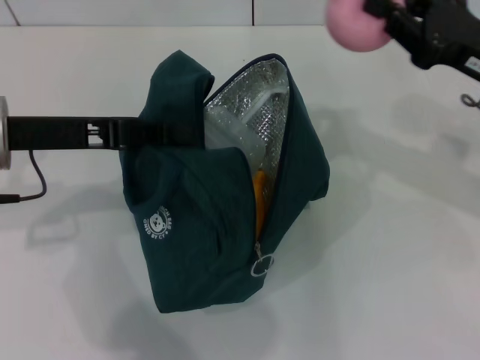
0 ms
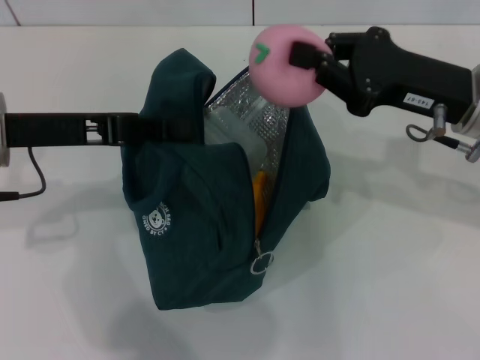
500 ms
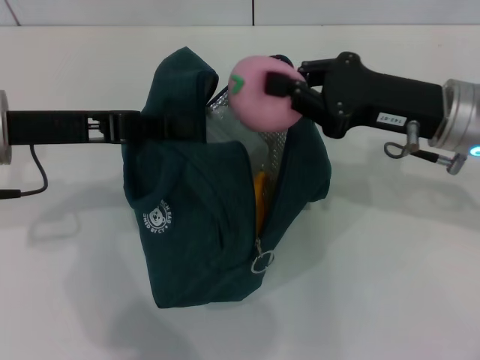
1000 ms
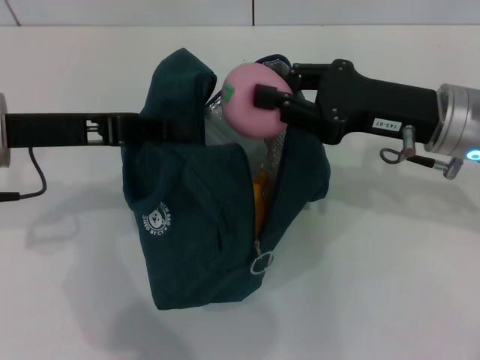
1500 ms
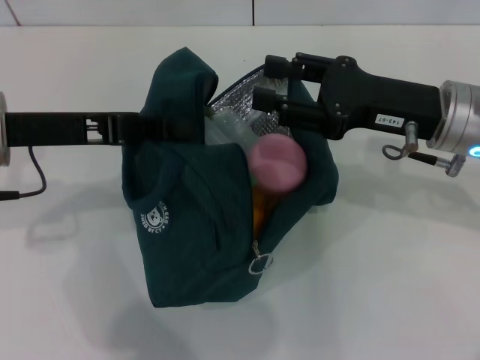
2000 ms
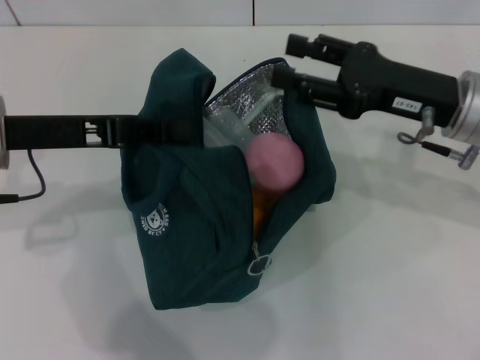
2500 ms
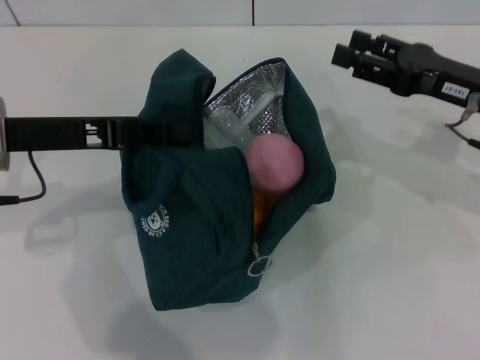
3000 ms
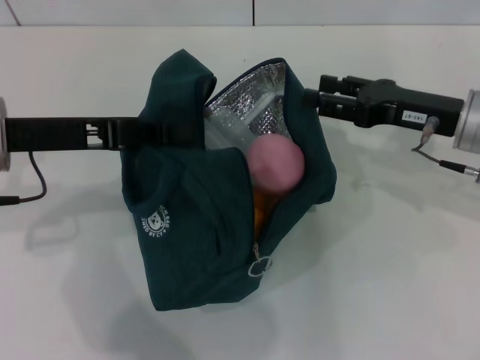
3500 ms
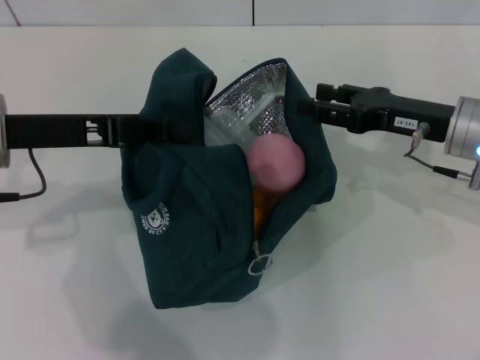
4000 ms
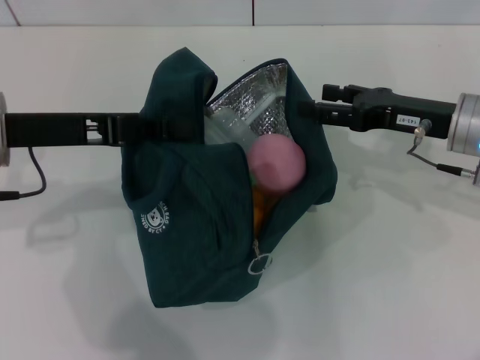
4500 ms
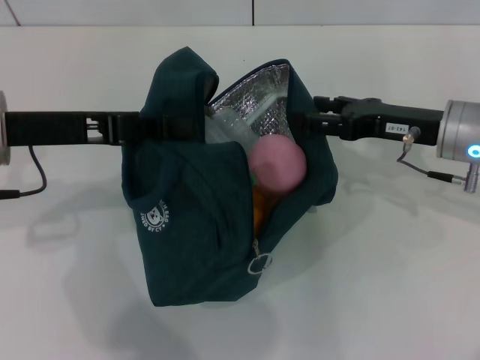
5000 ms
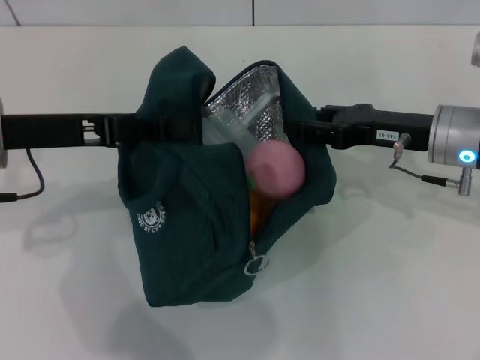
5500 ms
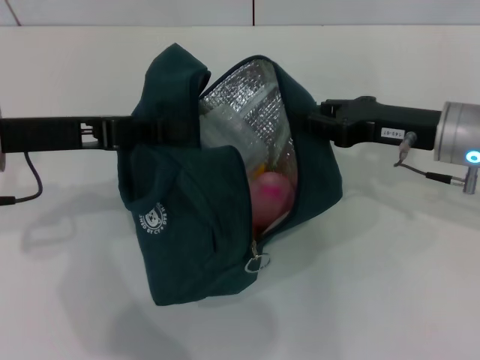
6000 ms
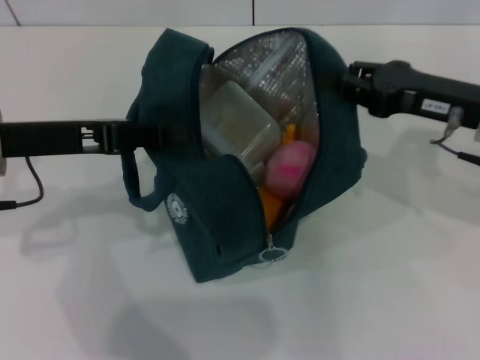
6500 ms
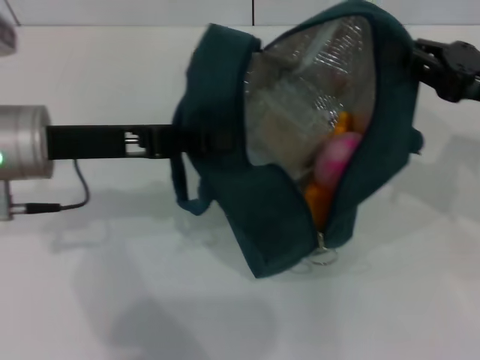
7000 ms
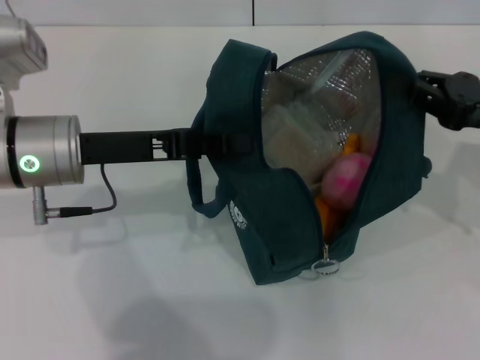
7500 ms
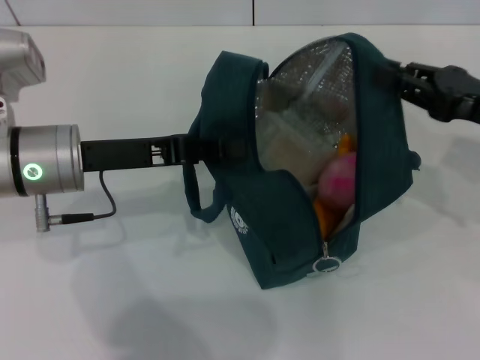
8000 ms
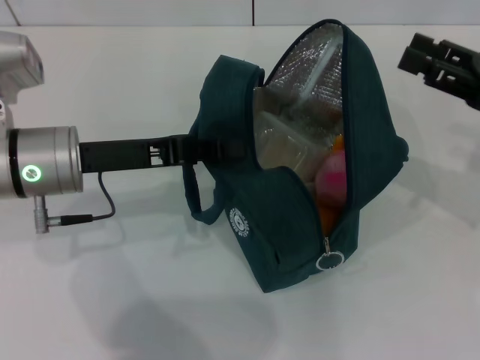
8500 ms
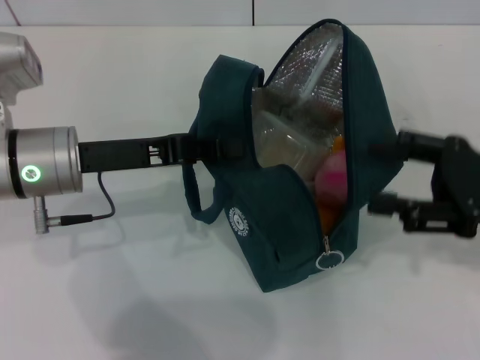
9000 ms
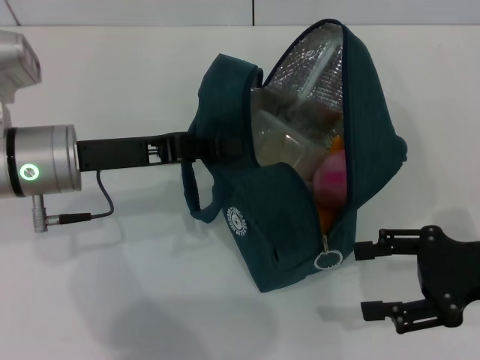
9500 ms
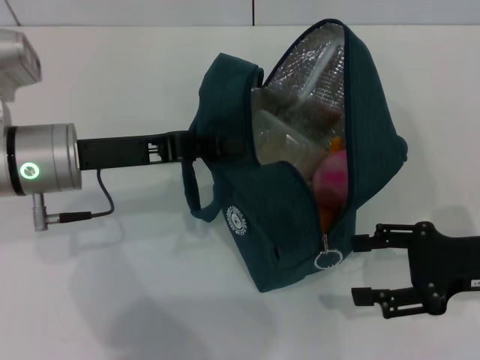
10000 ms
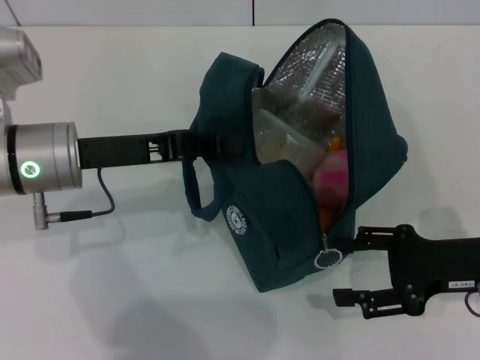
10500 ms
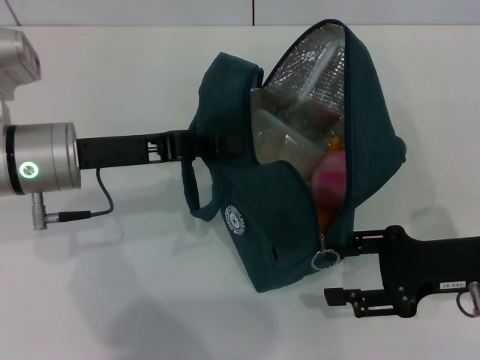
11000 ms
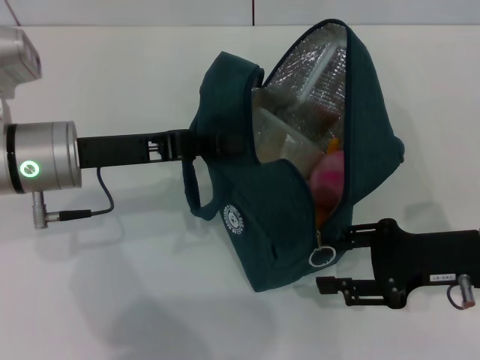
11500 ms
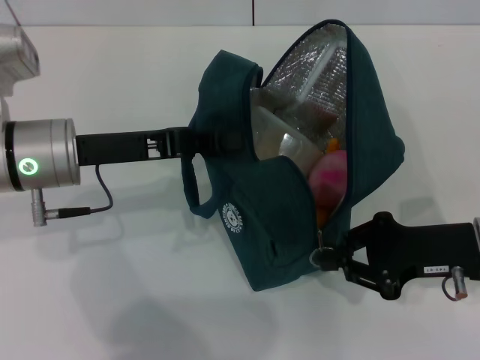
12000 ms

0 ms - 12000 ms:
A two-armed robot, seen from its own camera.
Step, 2500 ms - 8000 ms: Hold the lunch bag with your right hand.
0 ms - 2000 ms: The right gripper goes some 5 cm to the left, and opens up.
2000 ms - 4000 ms: The right gripper shifts by some 5 cm.
4000 ms - 6000 ms: The right gripper closes its fingers.
6000 ms - 8000 ms: The left gripper shifts by some 5 cm; the right gripper goes about 5 cm to the right.
8000 ms - 10000 ms: The right gripper moves backward and downward, about 10 cm, and opens its fingers.
10000 ms - 12000 ms: The right gripper closes.

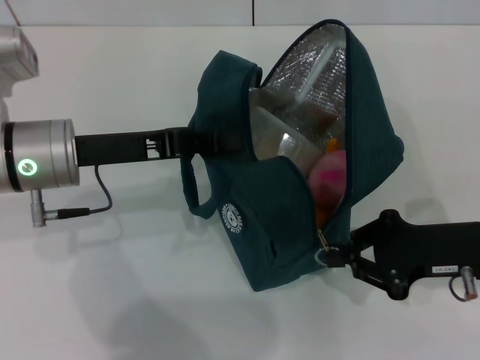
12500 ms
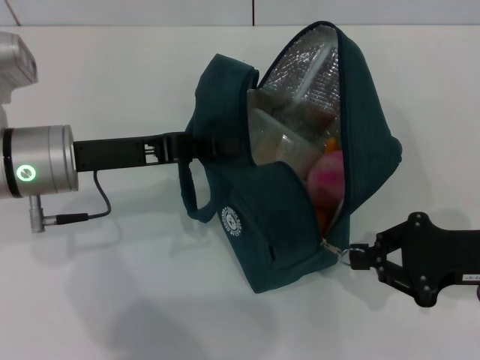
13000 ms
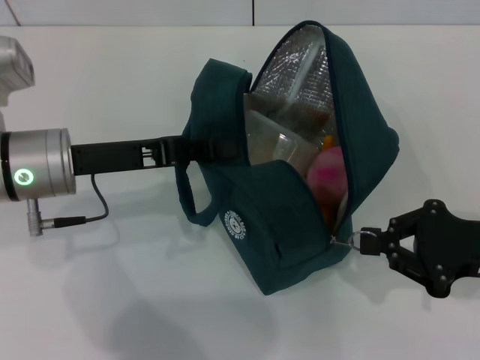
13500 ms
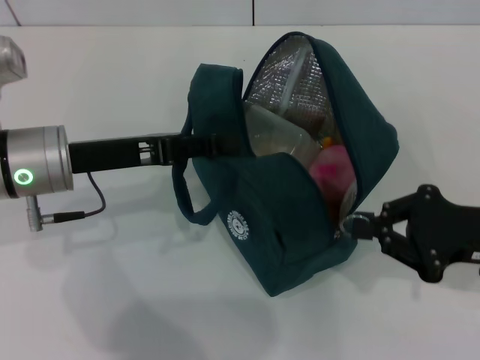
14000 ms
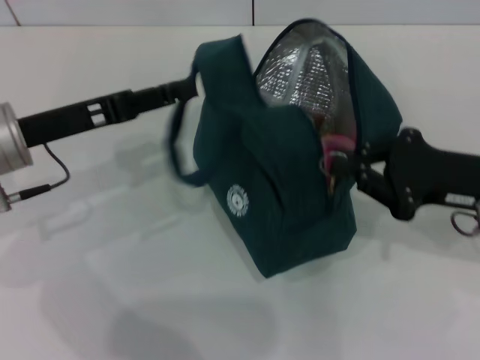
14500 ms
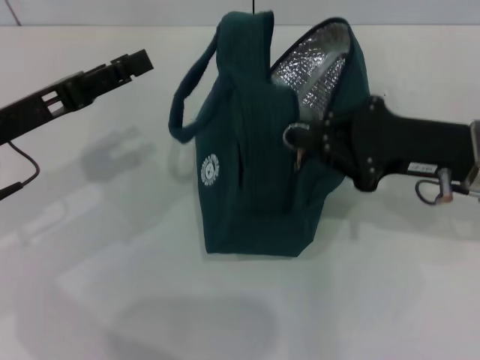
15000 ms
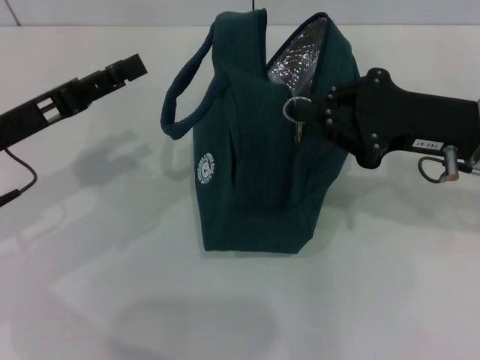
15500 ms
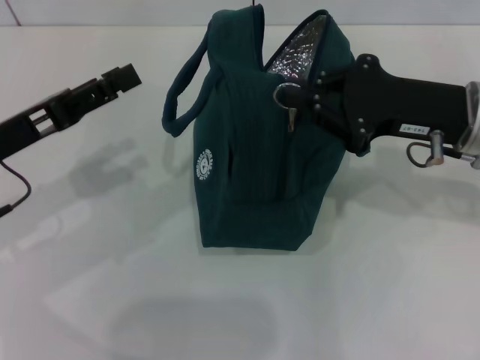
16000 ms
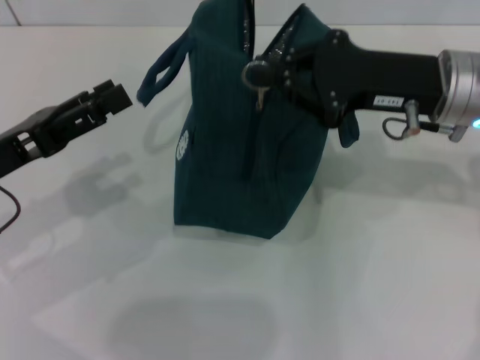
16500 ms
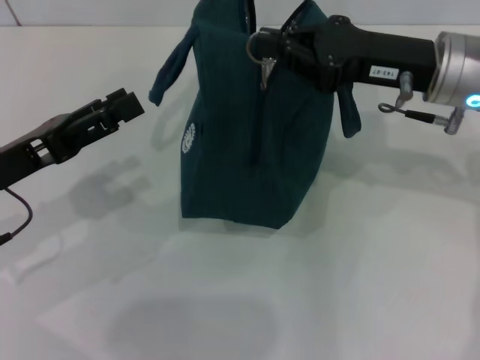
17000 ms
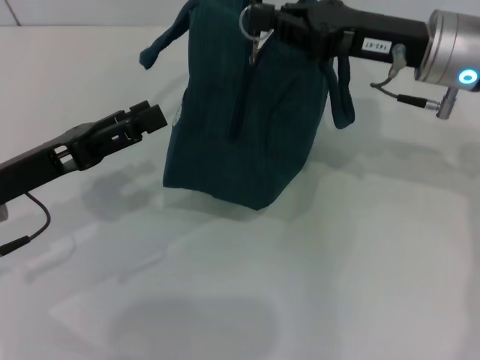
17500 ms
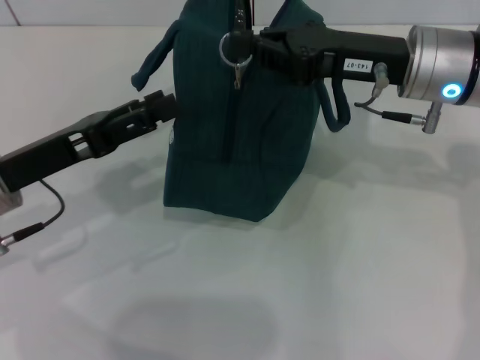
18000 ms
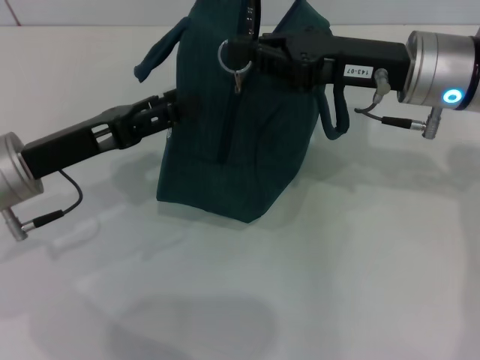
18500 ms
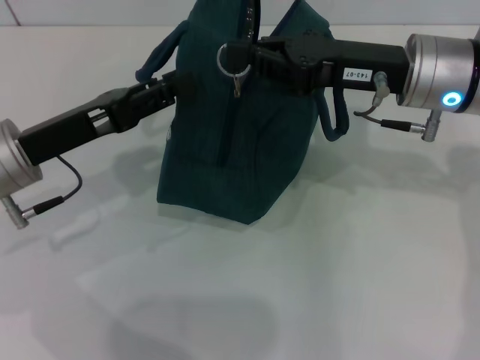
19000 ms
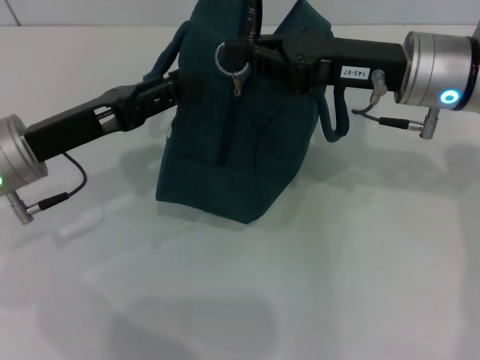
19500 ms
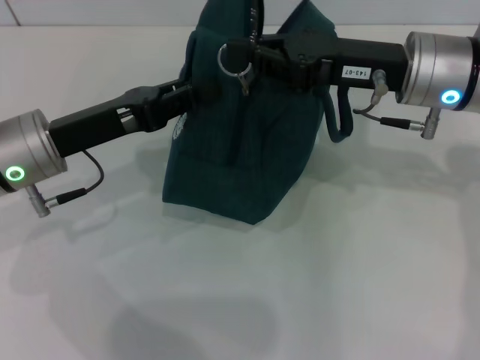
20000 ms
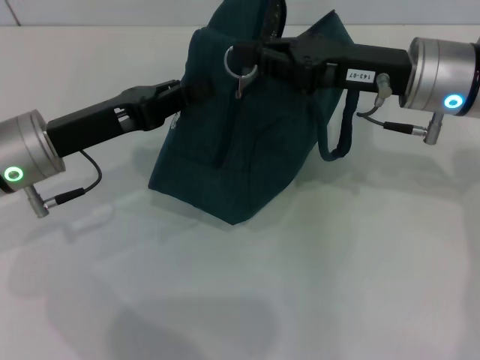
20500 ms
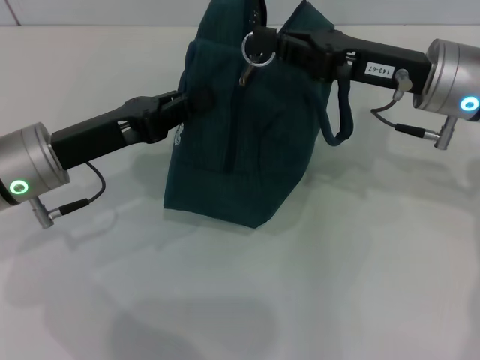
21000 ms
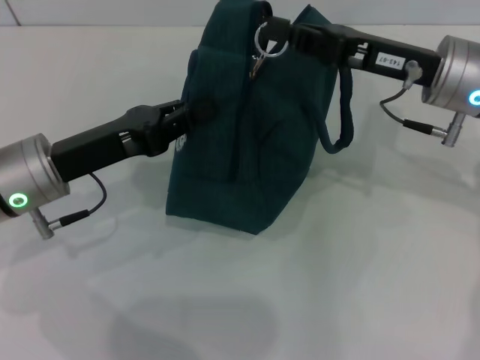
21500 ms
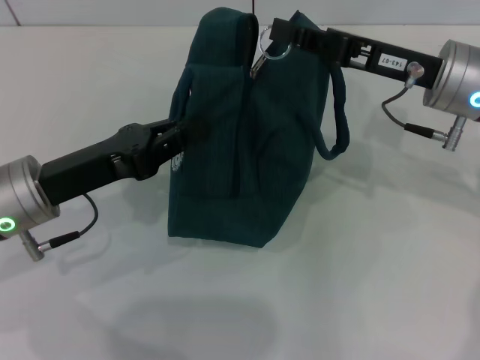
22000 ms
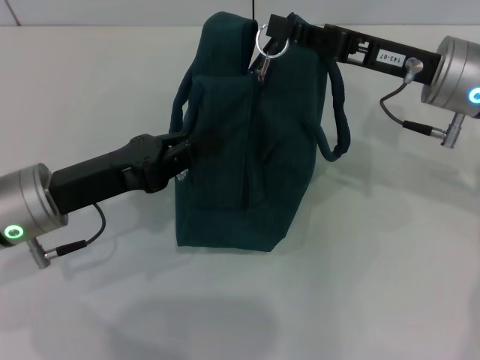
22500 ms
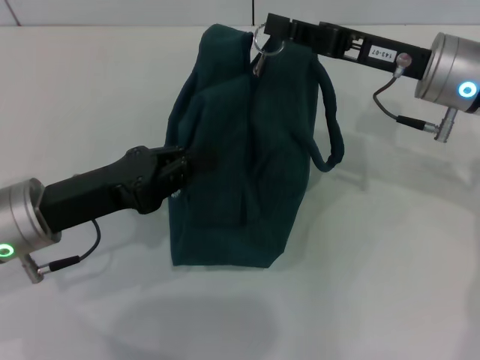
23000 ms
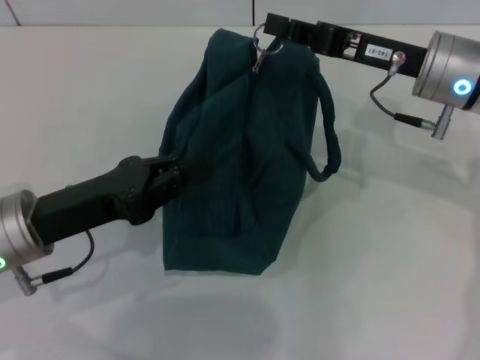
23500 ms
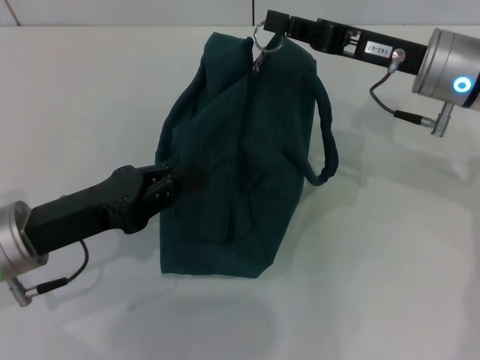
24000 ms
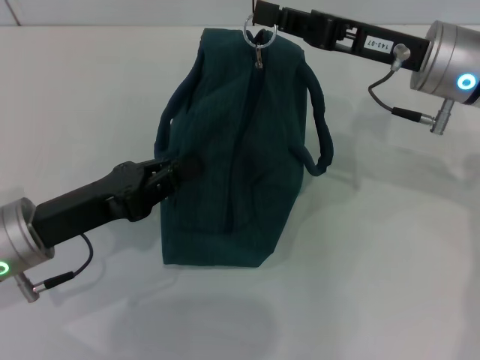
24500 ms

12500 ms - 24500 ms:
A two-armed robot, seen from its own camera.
12500 ms - 14500 ms: The left gripper opens.
14500 ms - 16500 ms: The right gripper goes about 10 cm to the left, upward and forward, while the left gripper moves backward, some 5 cm.
16500 ms - 18500 ms: The left gripper changes place by approximately 5 cm.
18500 ms - 20500 ms: The left gripper closes.

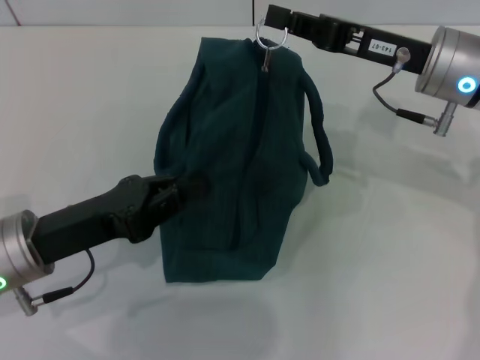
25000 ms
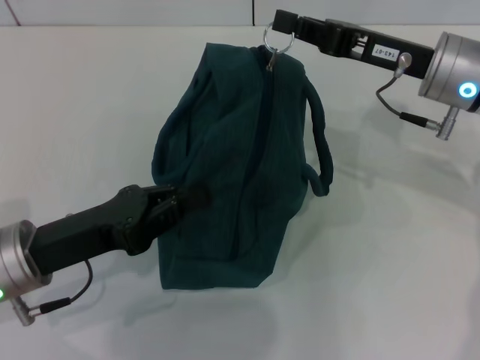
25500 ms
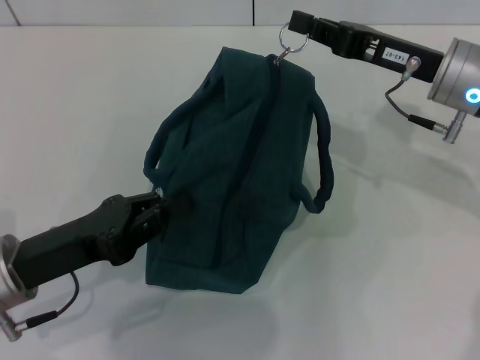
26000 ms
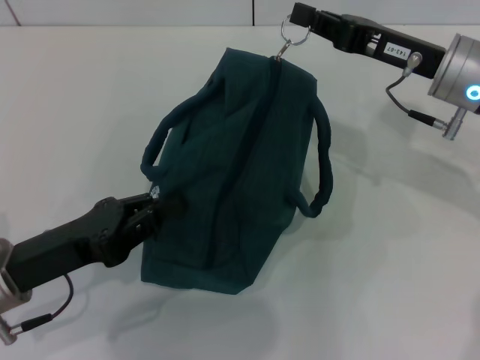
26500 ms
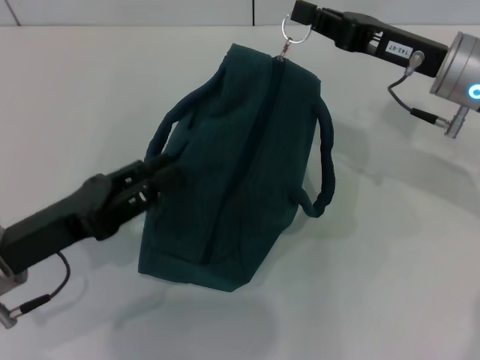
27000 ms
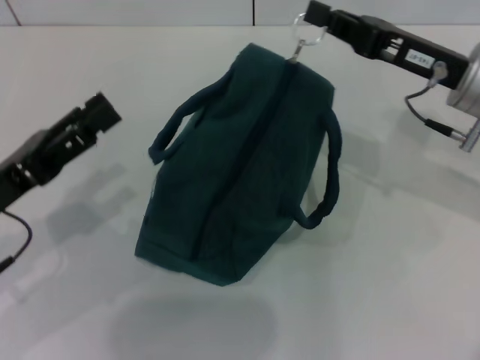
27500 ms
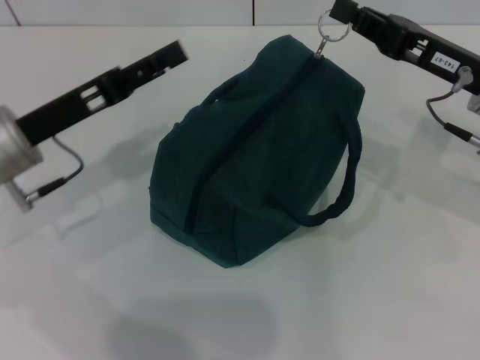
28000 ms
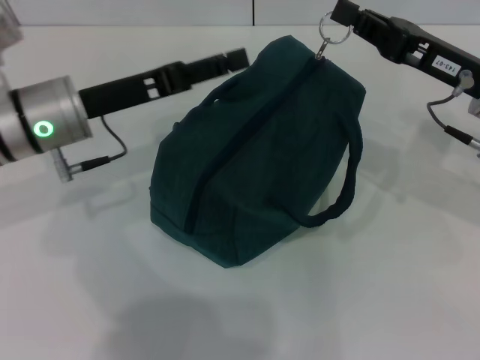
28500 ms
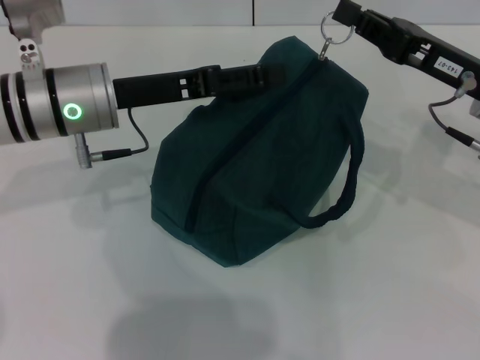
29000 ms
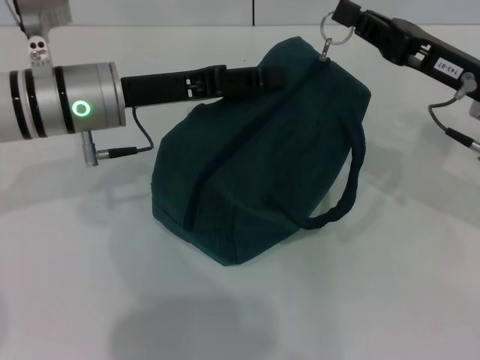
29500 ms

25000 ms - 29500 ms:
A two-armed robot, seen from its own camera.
25000 ms - 27000 ms: The grippers make only small movements.
27000 ms - 29500 ms: The left gripper heads forward, to the right and upward, covering approximately 15 cm, and opens.
